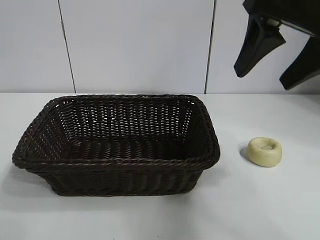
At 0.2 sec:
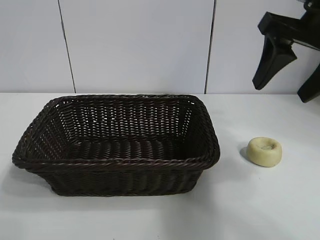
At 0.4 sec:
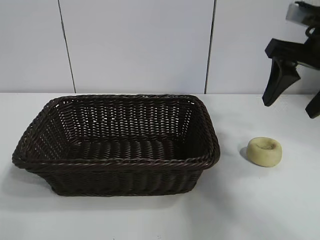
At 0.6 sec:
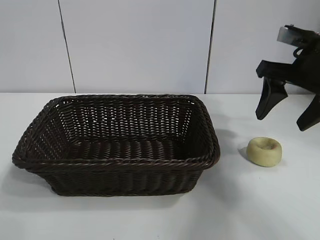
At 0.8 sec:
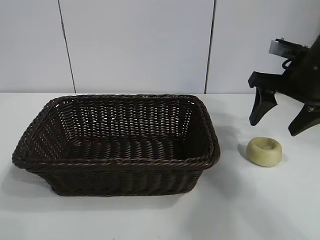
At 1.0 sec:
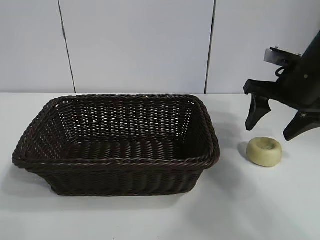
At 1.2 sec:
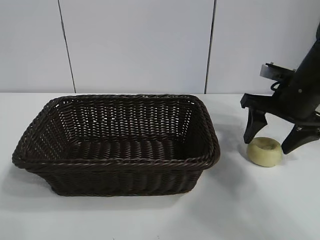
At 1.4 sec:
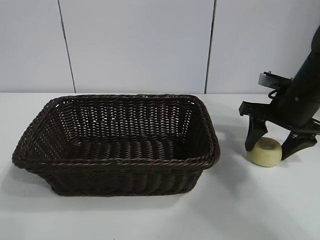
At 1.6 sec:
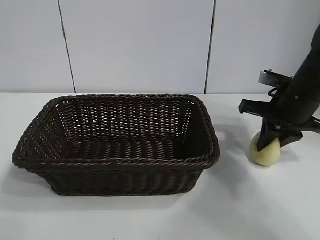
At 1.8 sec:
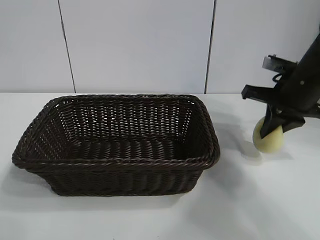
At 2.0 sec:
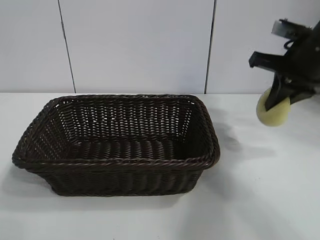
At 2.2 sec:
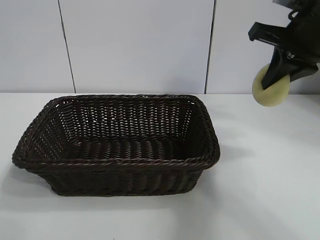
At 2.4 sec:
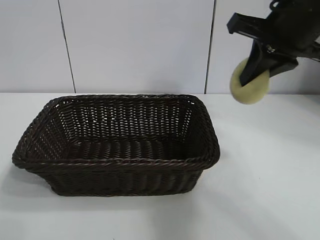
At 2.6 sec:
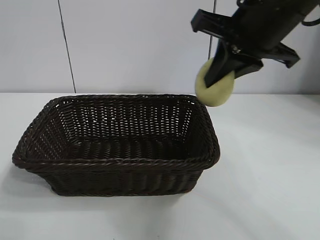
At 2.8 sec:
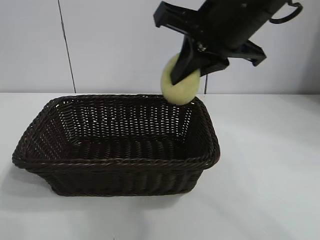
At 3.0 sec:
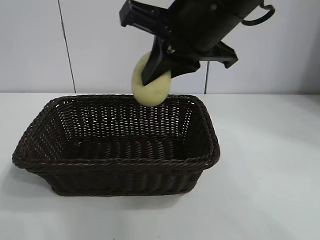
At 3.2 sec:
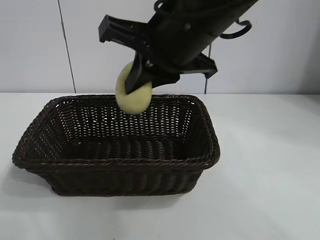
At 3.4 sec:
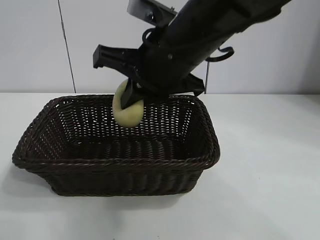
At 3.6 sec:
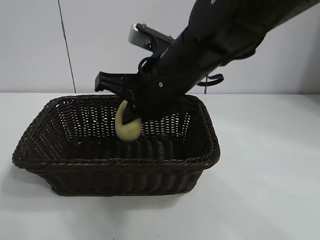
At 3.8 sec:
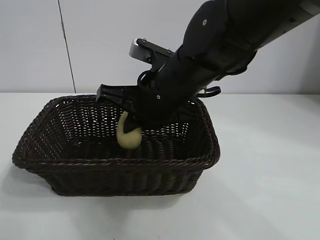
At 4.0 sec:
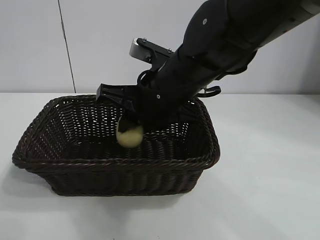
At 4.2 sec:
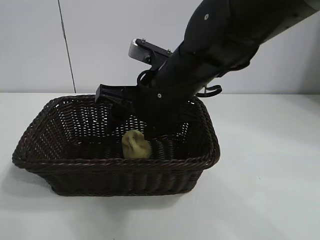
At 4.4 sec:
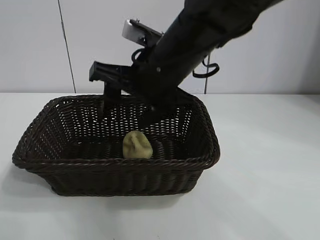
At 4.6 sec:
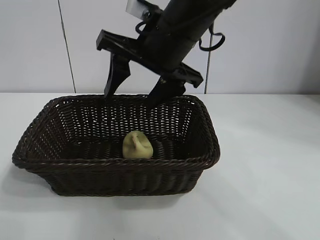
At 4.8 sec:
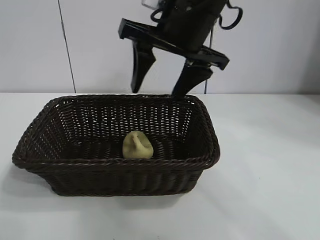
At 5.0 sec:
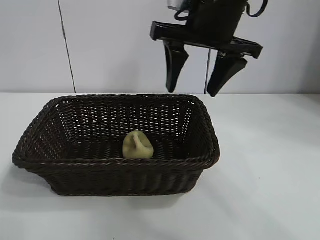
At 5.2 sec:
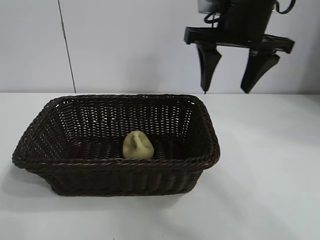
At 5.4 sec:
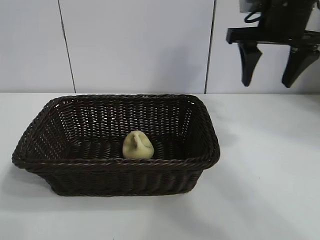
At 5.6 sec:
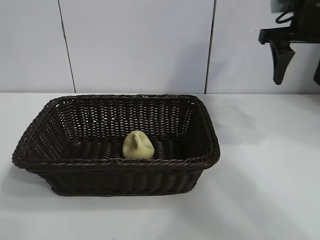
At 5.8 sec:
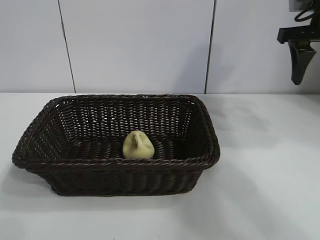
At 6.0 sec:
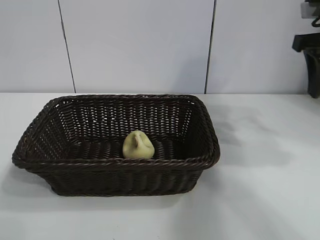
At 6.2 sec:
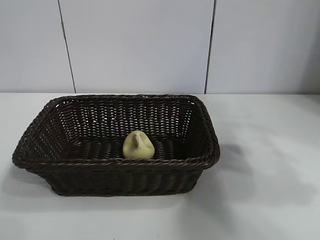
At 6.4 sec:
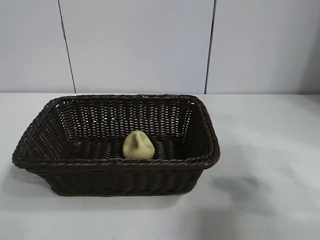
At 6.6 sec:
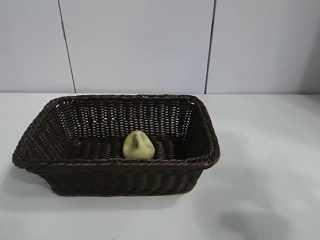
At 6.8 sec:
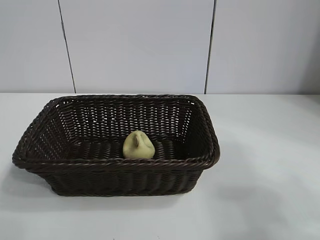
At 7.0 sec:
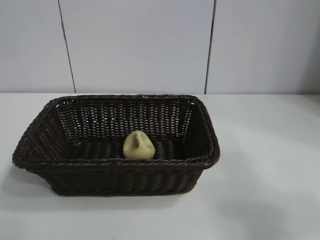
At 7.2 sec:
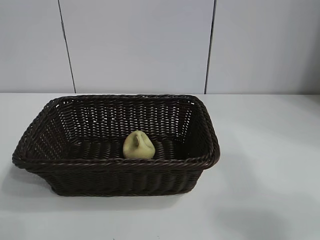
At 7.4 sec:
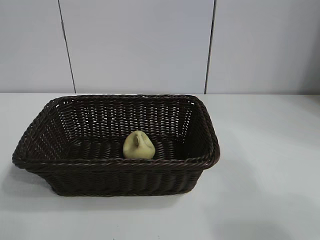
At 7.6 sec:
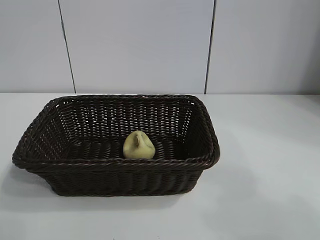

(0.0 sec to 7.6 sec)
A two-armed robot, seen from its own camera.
Task of the whole recording: pick up the egg yolk pastry and put it into the basket.
Step, 1.8 sec - 4.2 sec: Place the egg yolk pastry in the basket with right gripper.
